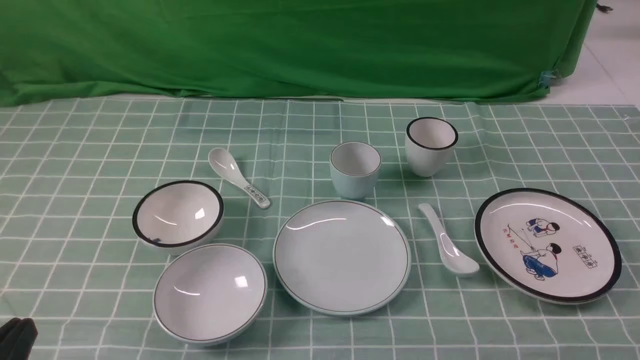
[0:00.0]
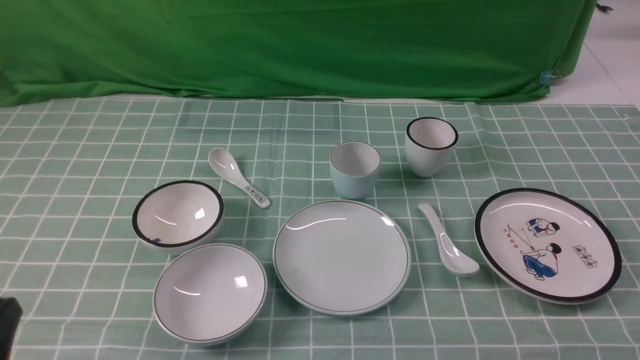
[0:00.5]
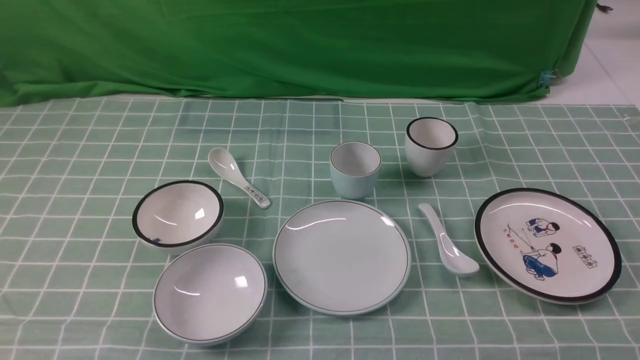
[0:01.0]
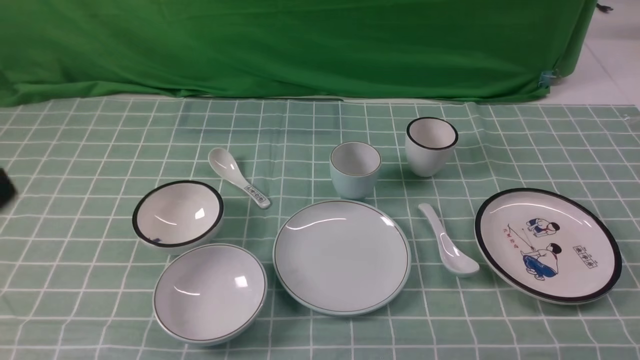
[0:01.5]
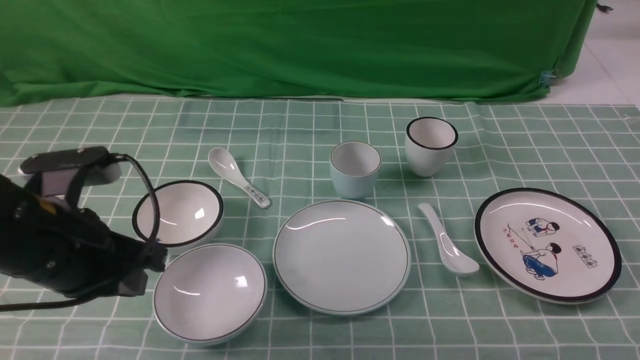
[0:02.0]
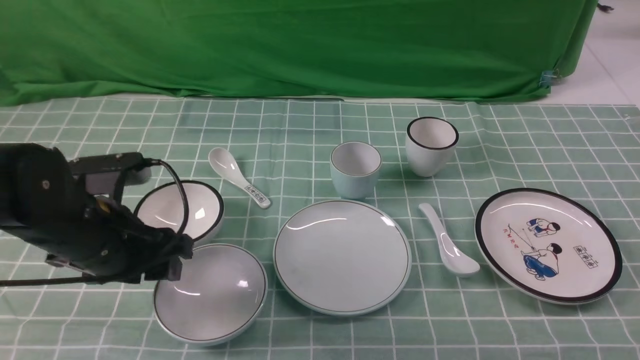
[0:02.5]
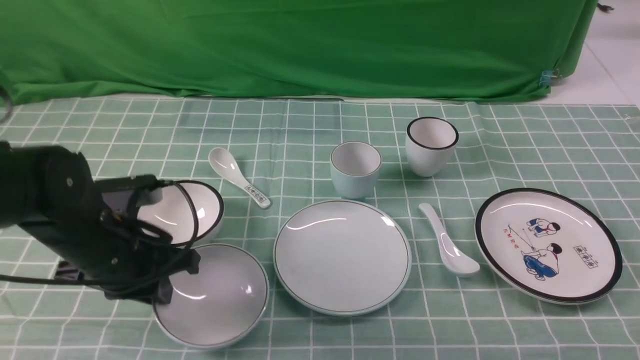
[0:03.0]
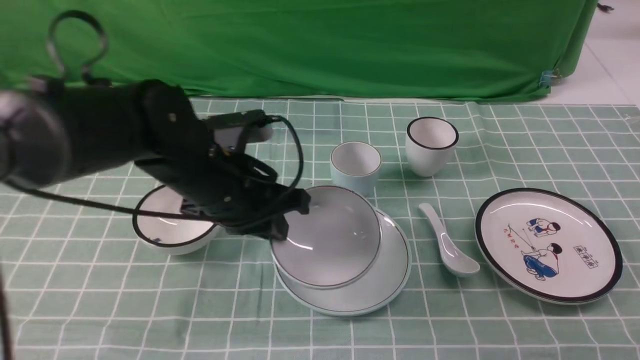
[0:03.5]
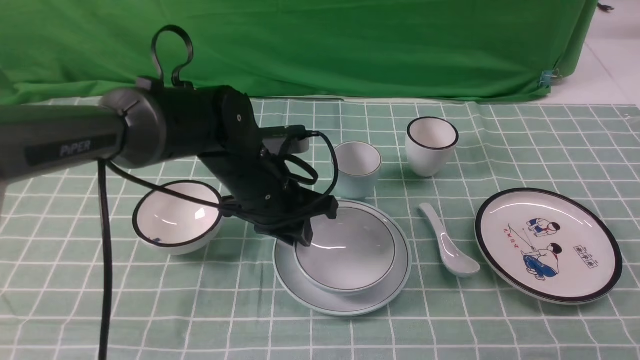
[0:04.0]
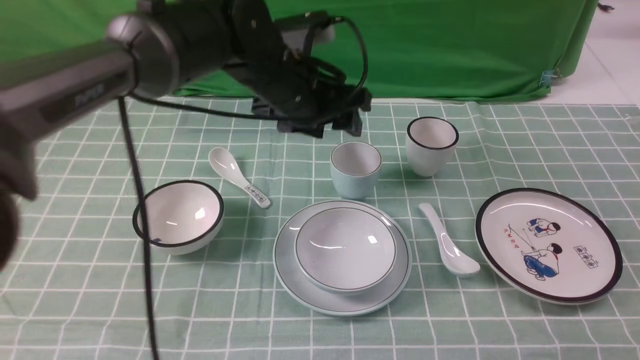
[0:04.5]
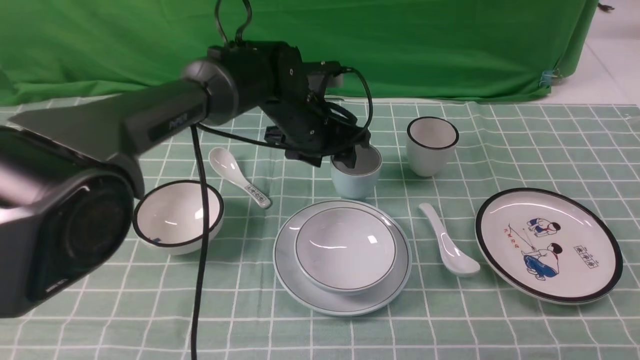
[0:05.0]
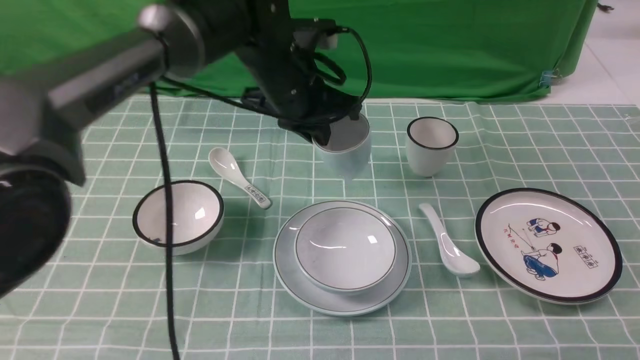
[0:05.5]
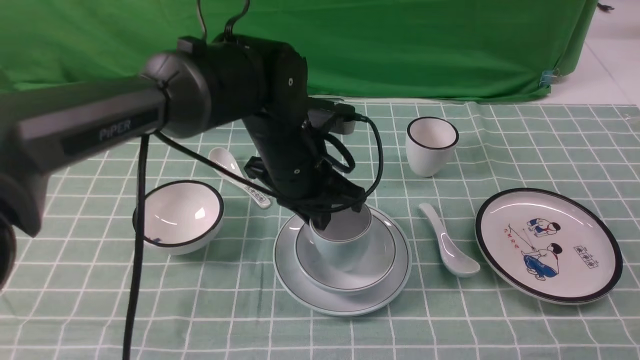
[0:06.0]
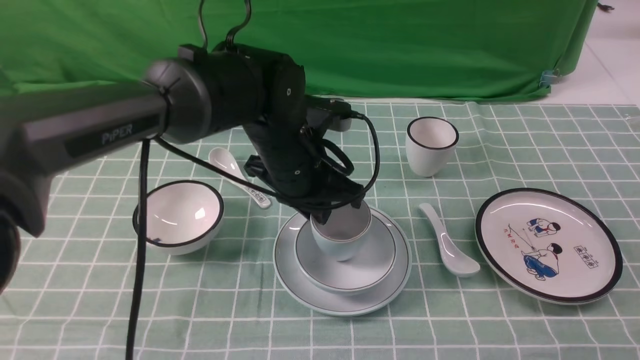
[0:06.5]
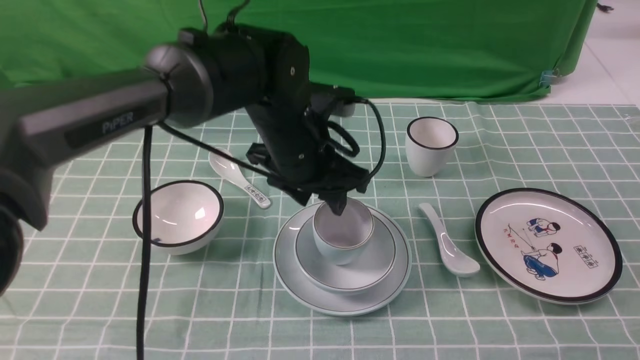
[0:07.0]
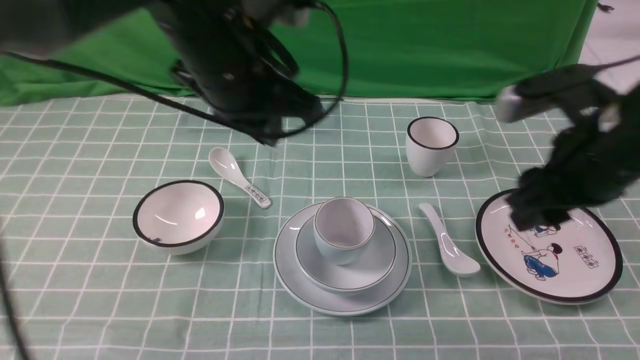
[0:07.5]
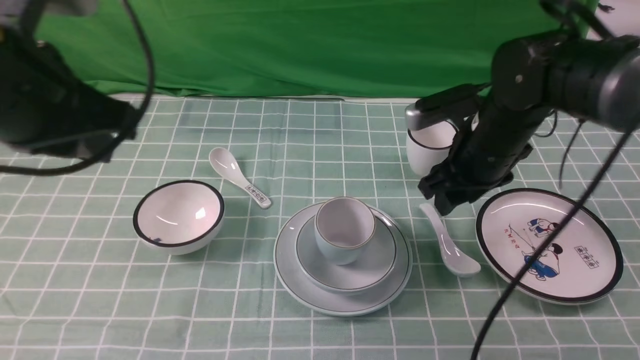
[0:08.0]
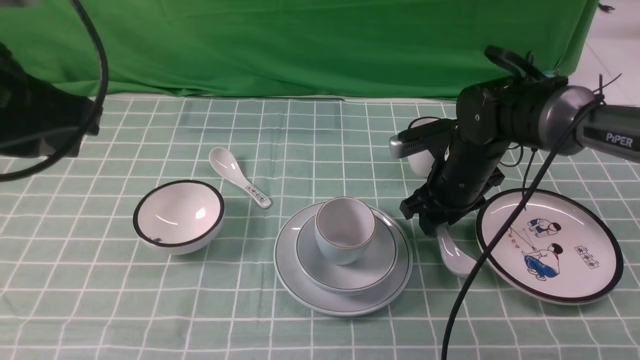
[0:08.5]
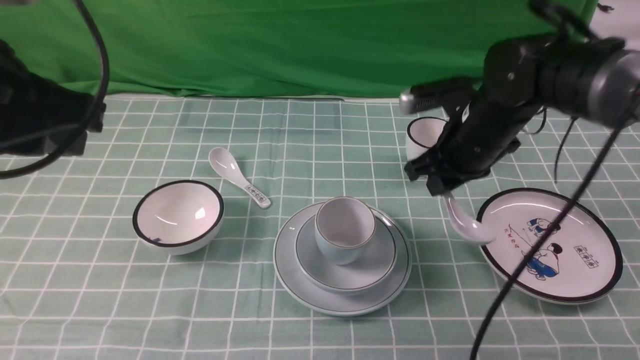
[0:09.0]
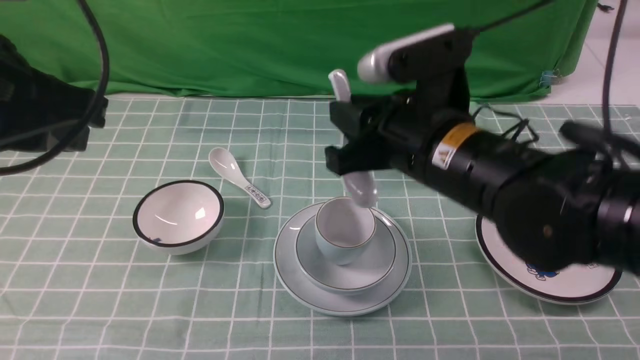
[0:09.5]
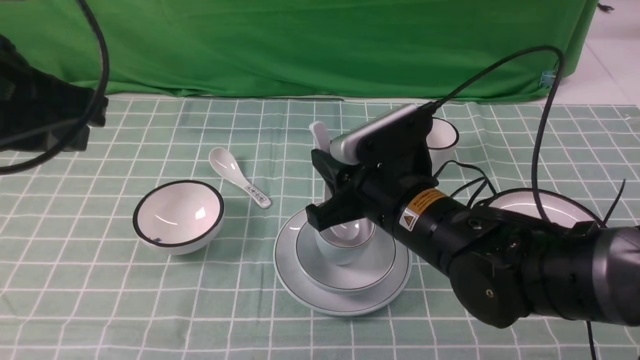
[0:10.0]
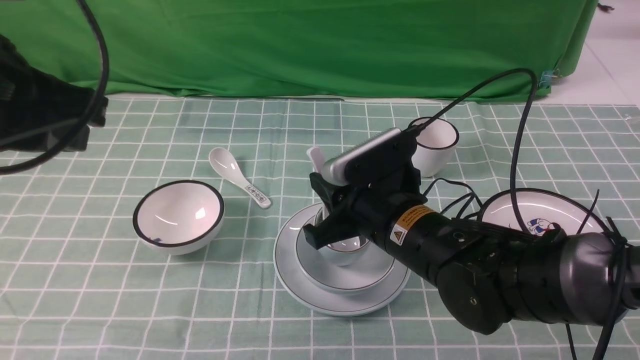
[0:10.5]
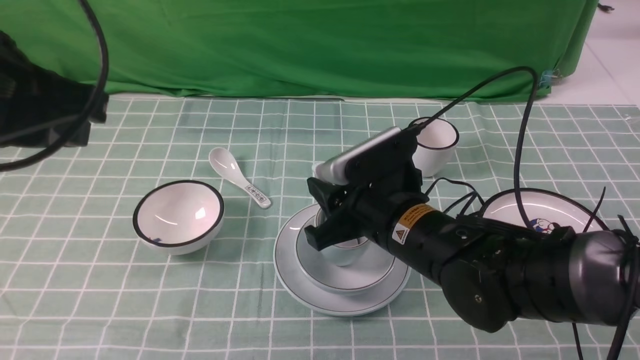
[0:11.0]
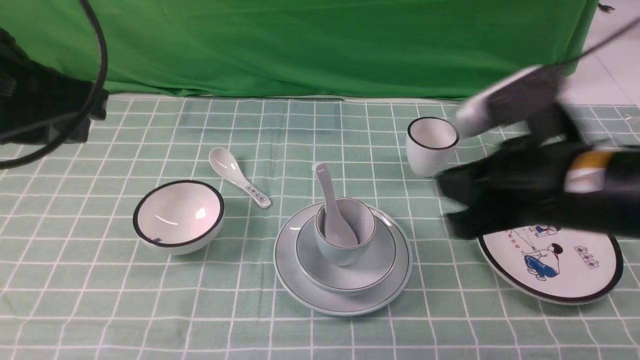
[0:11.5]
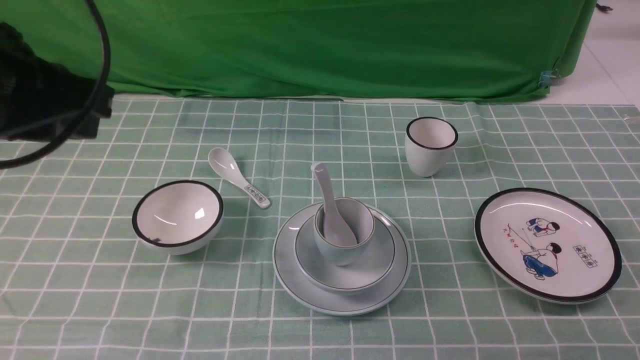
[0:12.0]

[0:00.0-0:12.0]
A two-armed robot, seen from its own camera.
Task of the whole recording: place the bowls on the plates on the blue tablecloth, put the cups on the bowls, and place the spoons in the cups.
Step, 0:00.0 to 0:02.5: Grasp the bowl with the left gripper.
Step, 0:03.0 to 0:04.0: Place the bowl on the plate with the left gripper.
Step, 0:04.5 to 0:05.0: Grasp the cup with the left gripper.
Step, 0:05.5 to 0:06.5: Place the cup on the bowl with the left gripper.
Step, 0:07.0 to 0:08.5: Grasp the spoon with the right gripper.
Step, 0:09.0 to 0:10.5: Place the spoon on the cup with the right gripper.
0:02.0 to 0:04.0: The left gripper shifts roughly 25 cm to the right, forward and downward, and opens, then closes again. Meanwhile the right gripper goes about 10 cm upward and forward.
0:04.0 to 0:06.0: The left gripper is displaced upward by approximately 5 cm, travels forward and back again, some 10 cm each way, and opens, then closes again.
0:06.0 to 0:08.0: The left gripper travels to the left, upward and backward by approximately 25 cm, and opens and closes again, while the right gripper moves forward and to the left, roughly 30 cm, and opens up.
0:08.0 to 0:10.0: The right gripper goes approximately 15 cm backward and to the left, and closes its fingers.
0:10.0 to 0:12.0: The right gripper is displaced to the right, backward and upward by roughly 35 cm.

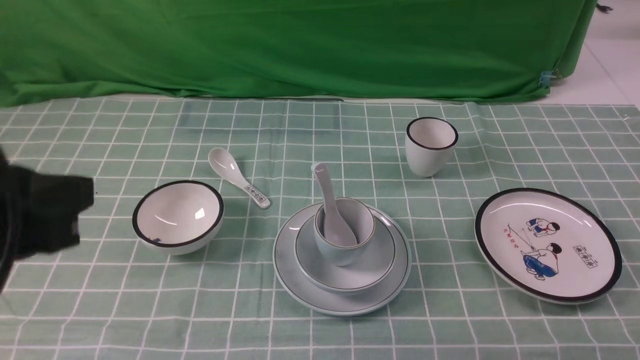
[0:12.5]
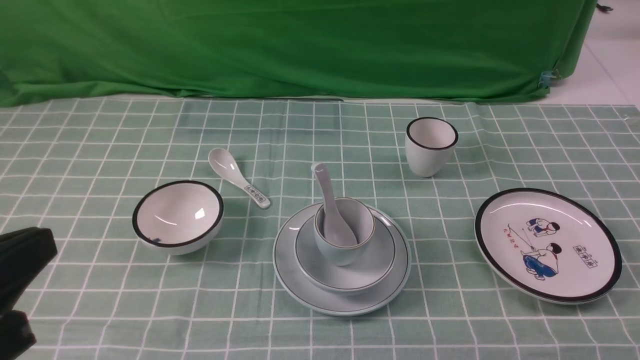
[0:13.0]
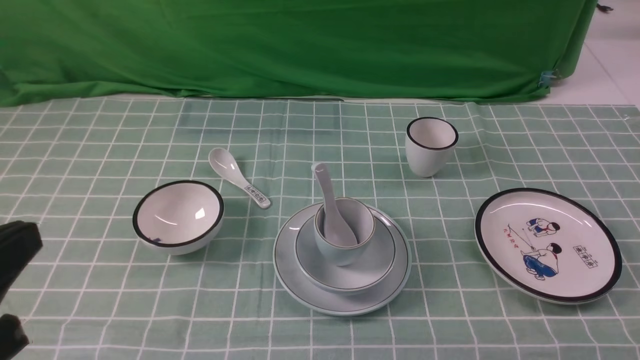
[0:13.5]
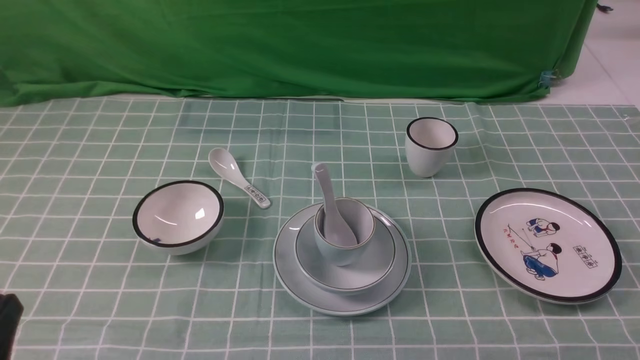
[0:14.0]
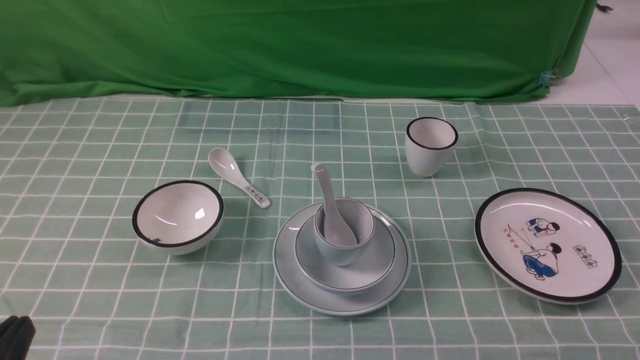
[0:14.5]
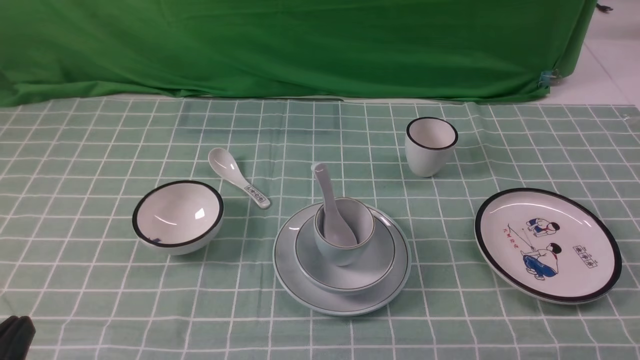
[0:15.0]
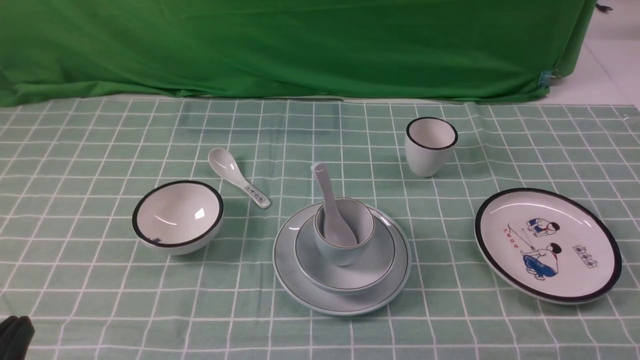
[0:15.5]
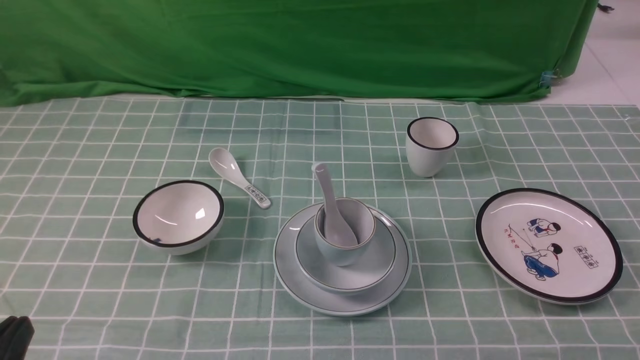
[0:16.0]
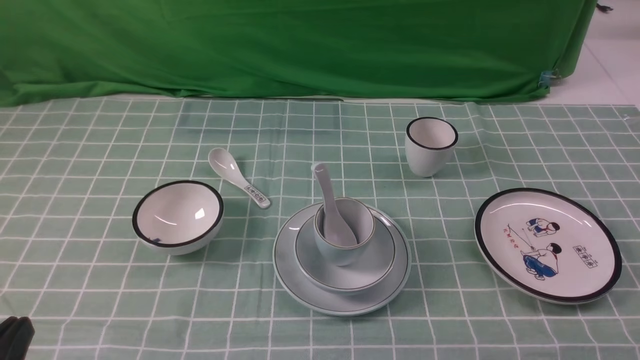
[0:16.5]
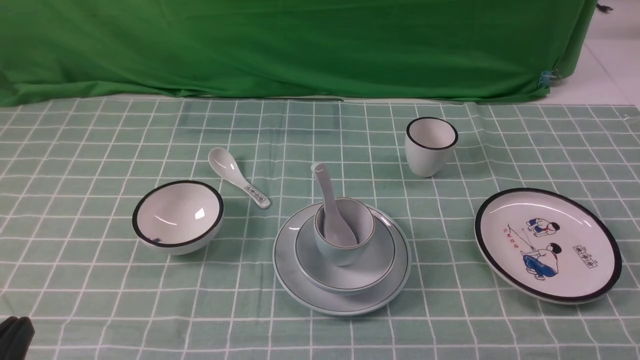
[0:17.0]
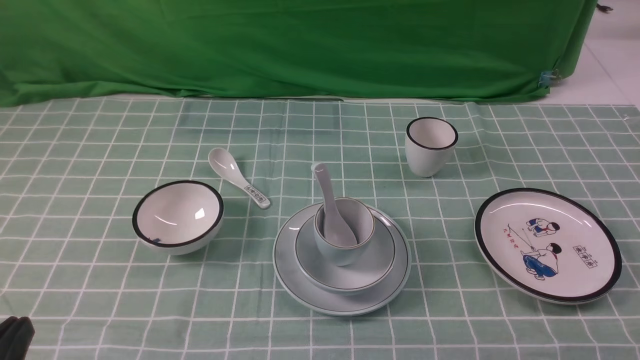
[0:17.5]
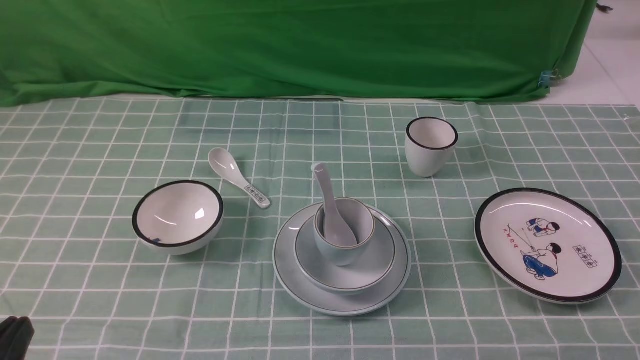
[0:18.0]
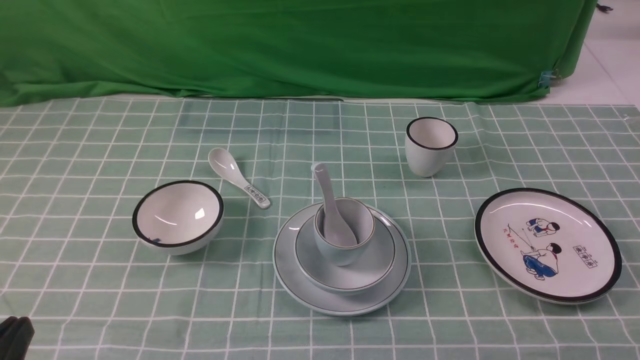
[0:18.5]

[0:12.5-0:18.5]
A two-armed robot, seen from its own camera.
Task of the whole recording: place the bowls on the plates on the blue tablecloth, put the cups on the bowls, and place the spoons in the cups.
0:12.5 to 0:14.5: The left gripper goes roughly 20 cm downward and backward.
0:16.5 to 0:18.5: The two grippers keep their place.
